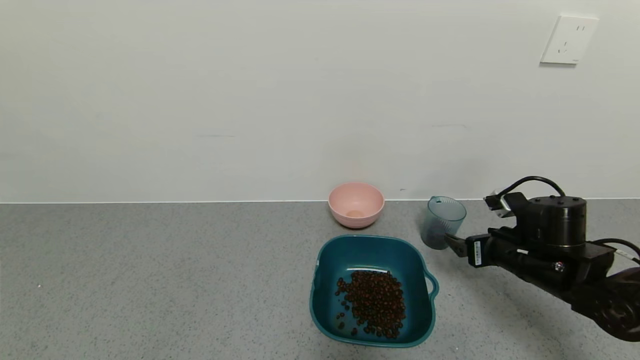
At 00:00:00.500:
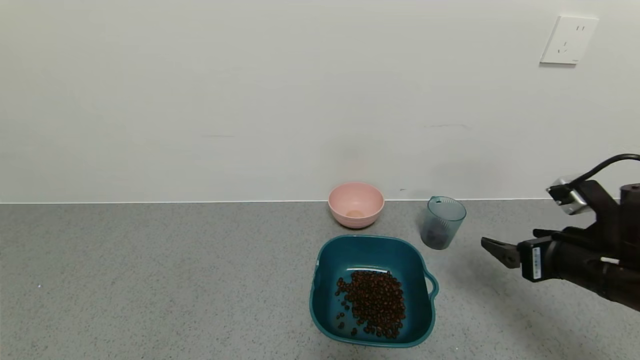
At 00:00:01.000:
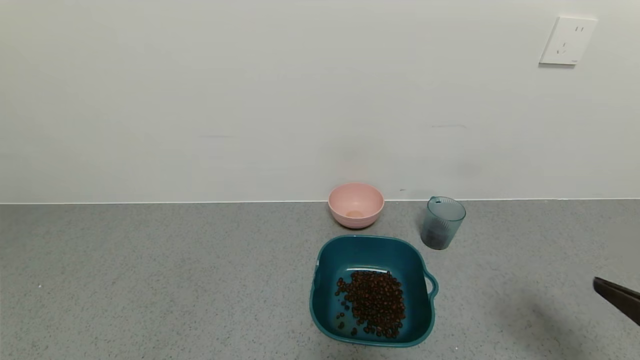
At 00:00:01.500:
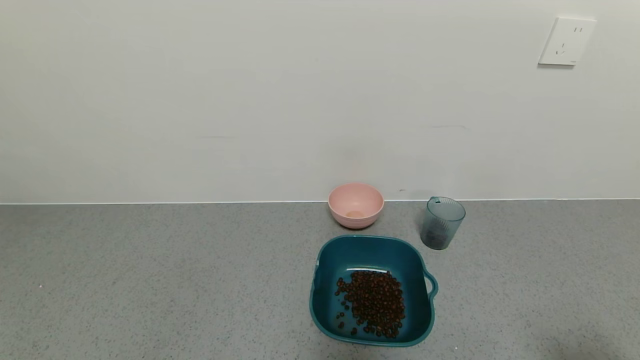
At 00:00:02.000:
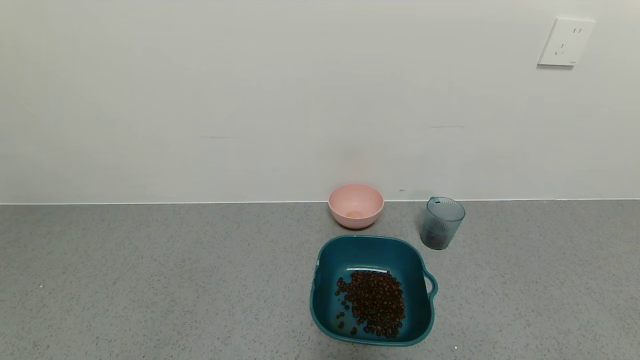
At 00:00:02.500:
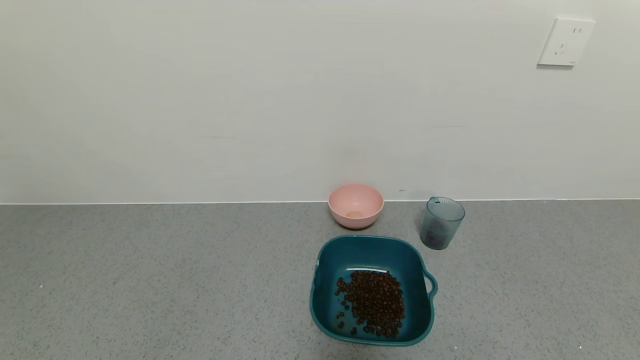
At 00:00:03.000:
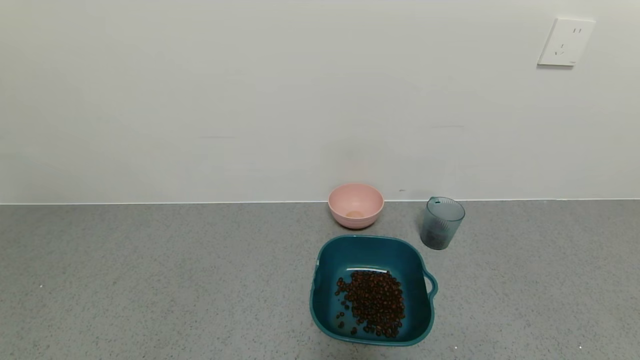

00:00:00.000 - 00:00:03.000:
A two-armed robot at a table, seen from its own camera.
Task of the whole recording: use a gripper to pick up the cup and pour the solid into a bowl or tray.
00:00:00.000 - 00:00:01.500: The right gripper shifts approximately 30 cm backward.
